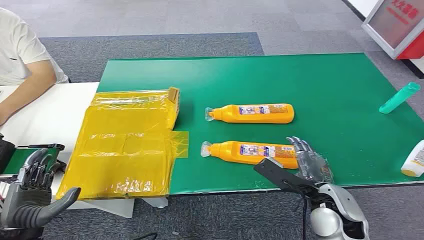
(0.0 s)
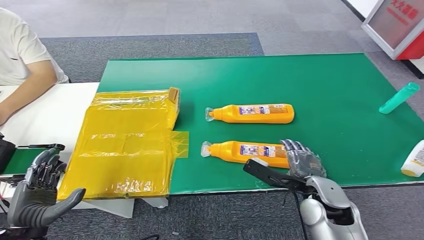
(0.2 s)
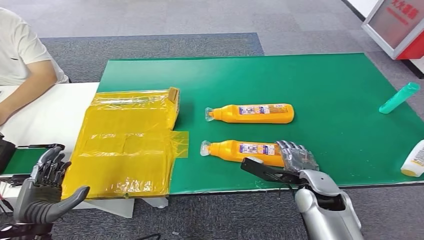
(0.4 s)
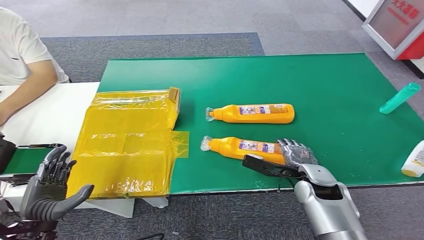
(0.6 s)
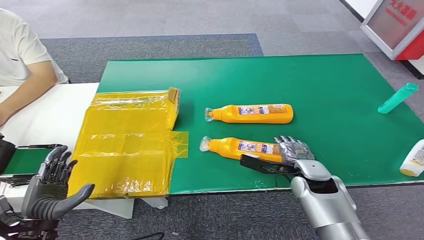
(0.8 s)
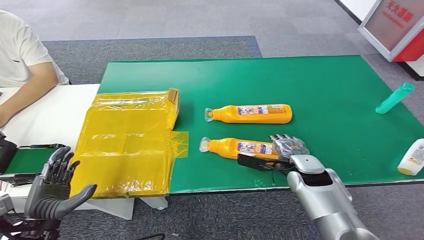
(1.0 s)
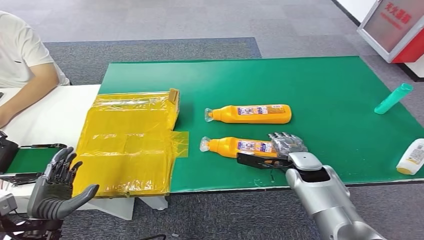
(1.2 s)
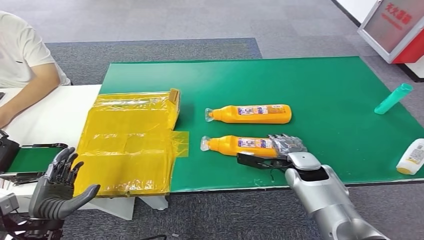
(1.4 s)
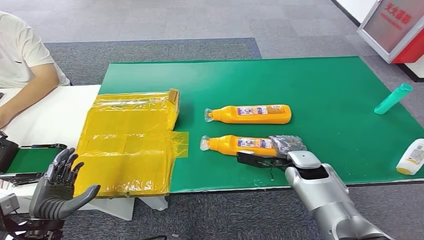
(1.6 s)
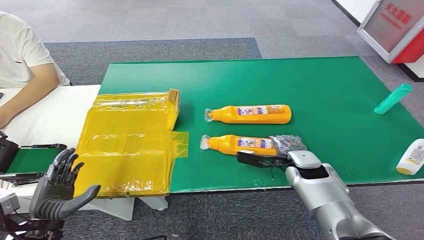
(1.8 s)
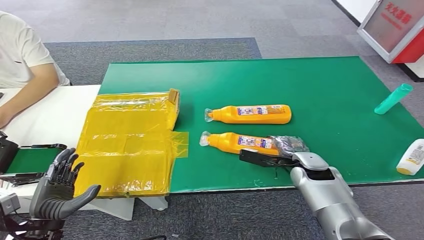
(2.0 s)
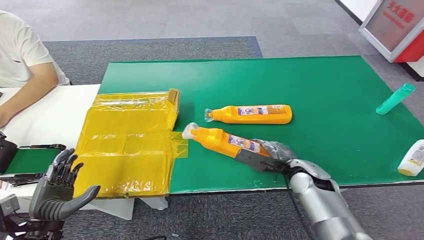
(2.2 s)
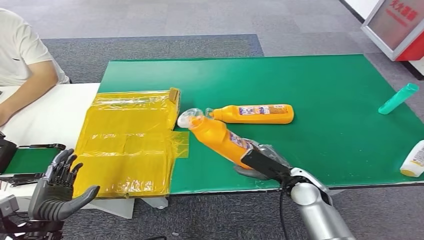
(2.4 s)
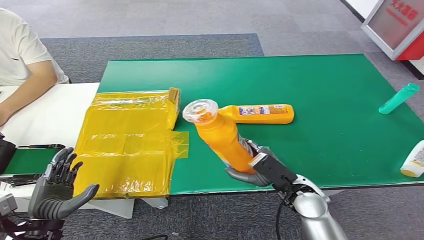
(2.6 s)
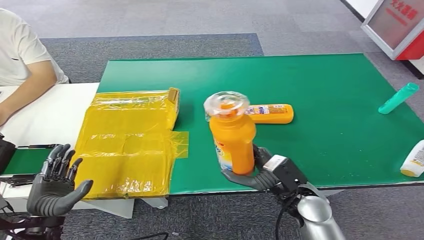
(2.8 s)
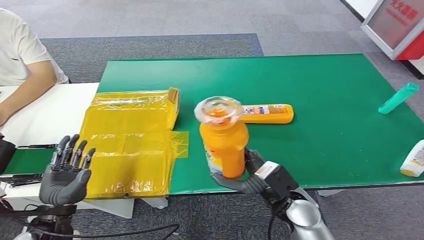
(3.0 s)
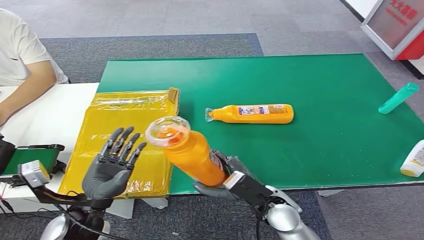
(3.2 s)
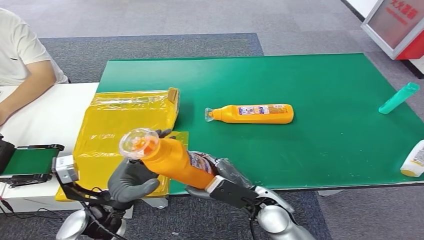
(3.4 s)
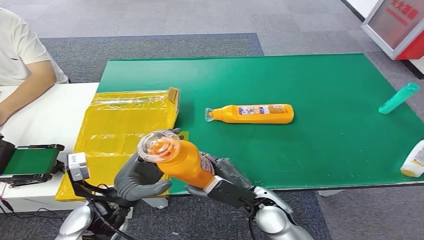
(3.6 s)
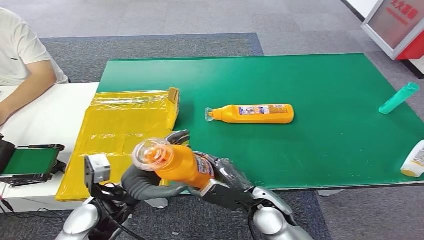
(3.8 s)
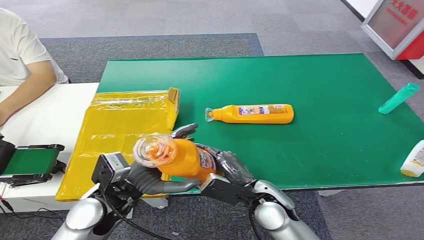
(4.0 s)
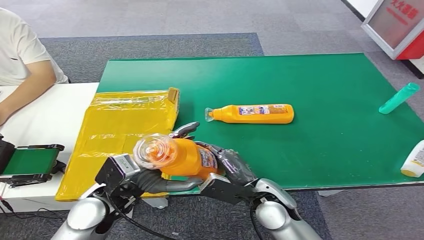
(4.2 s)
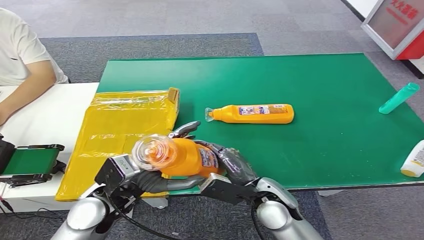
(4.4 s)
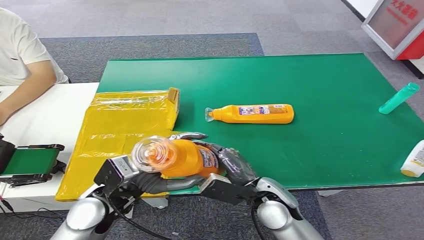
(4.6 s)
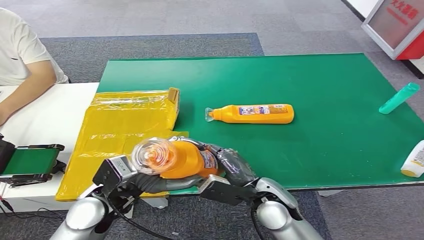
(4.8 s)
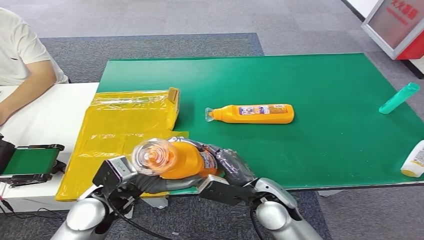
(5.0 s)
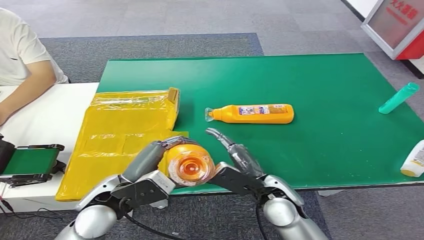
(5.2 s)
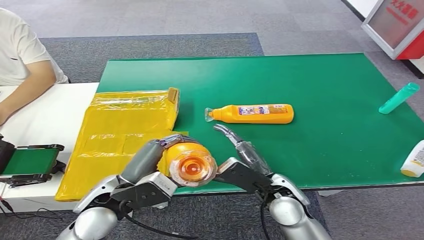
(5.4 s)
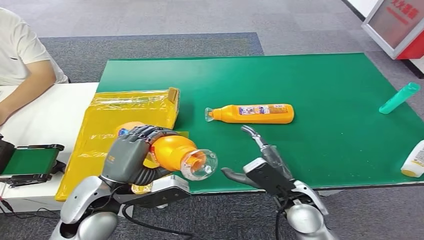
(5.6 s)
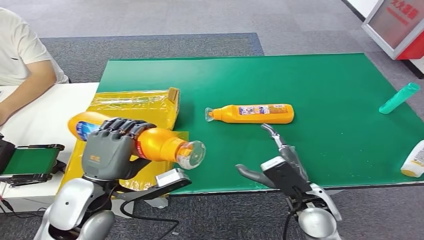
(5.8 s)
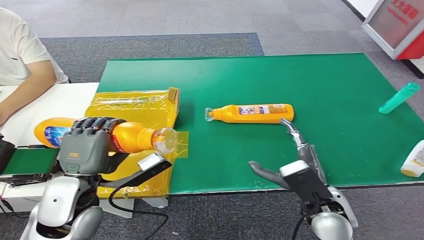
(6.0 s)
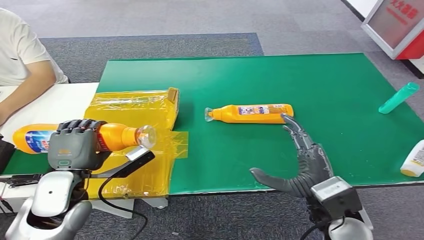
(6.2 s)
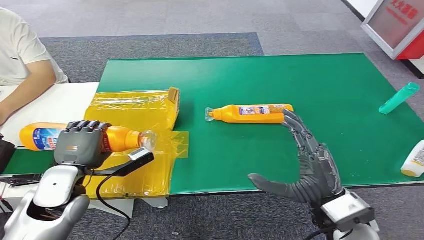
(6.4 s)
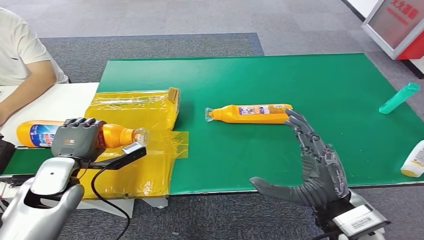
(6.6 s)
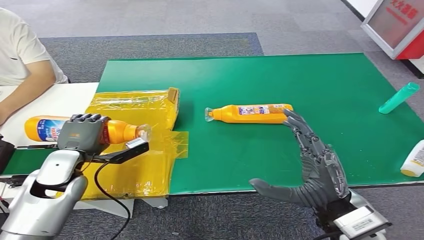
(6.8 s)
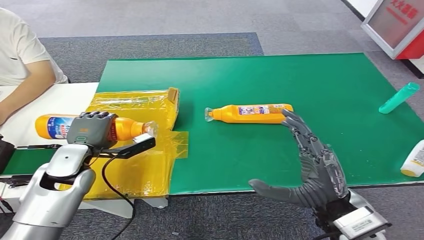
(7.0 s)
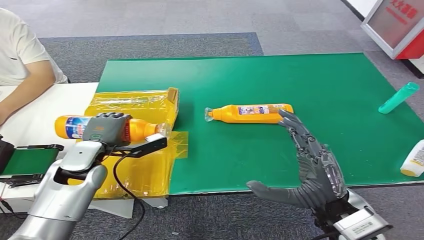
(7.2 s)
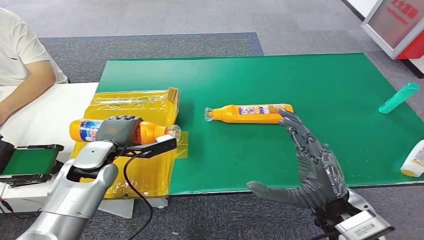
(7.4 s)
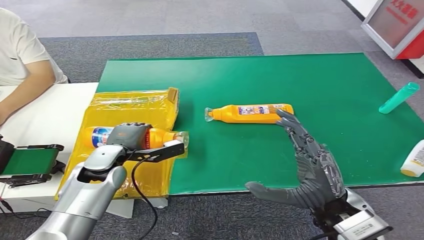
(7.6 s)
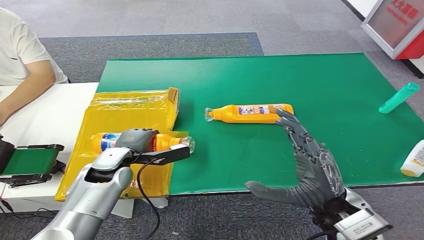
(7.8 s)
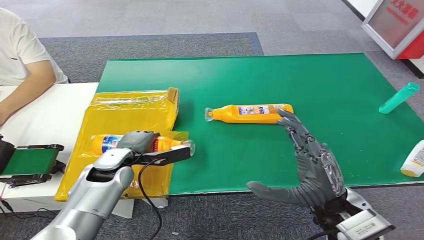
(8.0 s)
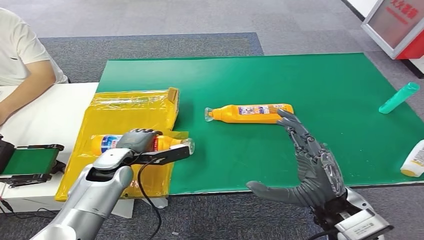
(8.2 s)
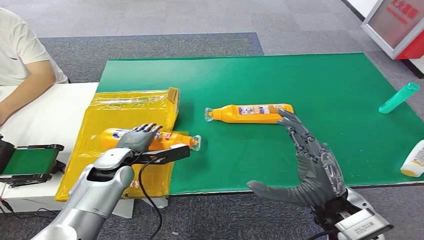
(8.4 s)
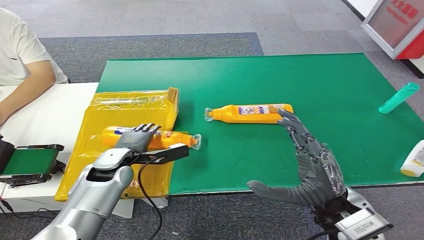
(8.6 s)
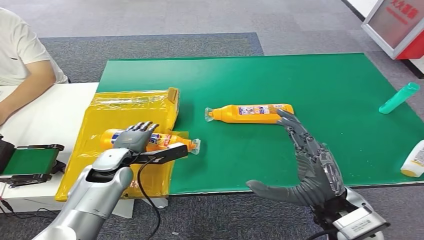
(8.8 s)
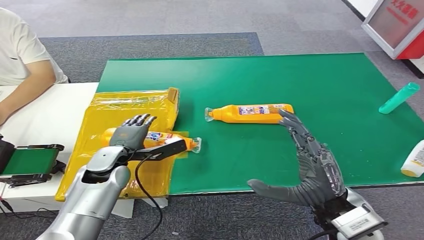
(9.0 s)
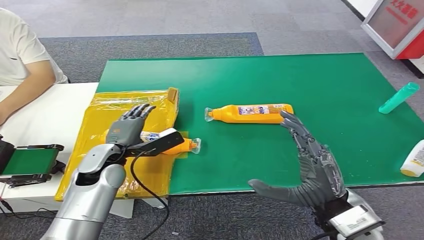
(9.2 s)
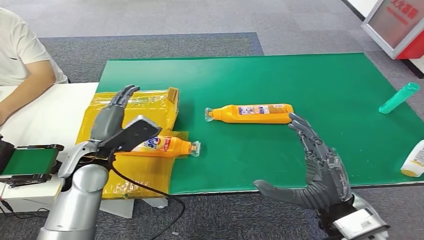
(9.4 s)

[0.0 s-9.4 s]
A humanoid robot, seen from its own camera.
Step, 0.0 to 3.0 s: Pick up the bottle from the table.
Step, 5.0 to 9.4 s: Turn the bottle to the front side.
3.2 to 4.8 s: The left hand travels to the right by about 5 cm.
6.2 to 7.8 s: The left hand travels forward and downward by roughly 10 cm.
7.8 to 9.4 s: The left hand shifts roughly 10 cm upward.

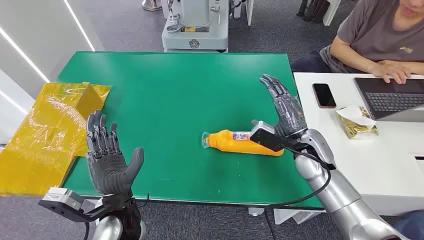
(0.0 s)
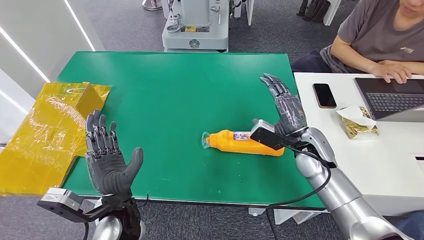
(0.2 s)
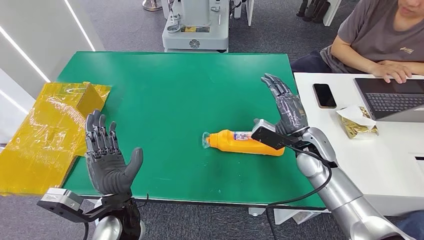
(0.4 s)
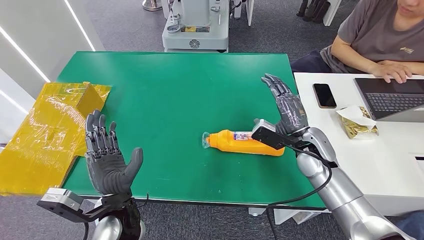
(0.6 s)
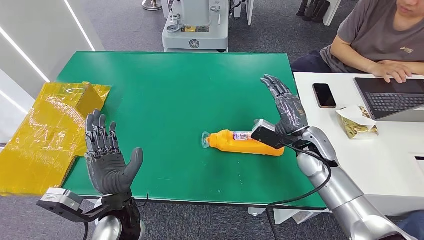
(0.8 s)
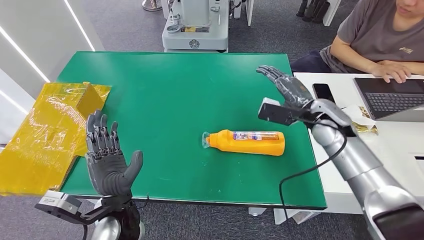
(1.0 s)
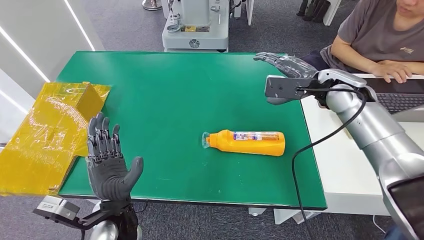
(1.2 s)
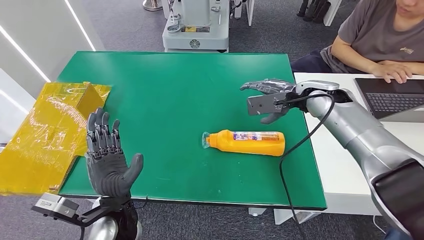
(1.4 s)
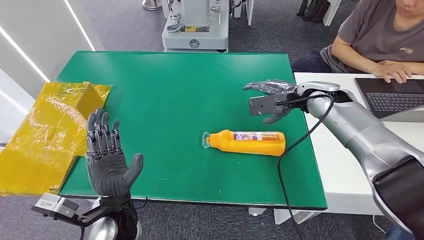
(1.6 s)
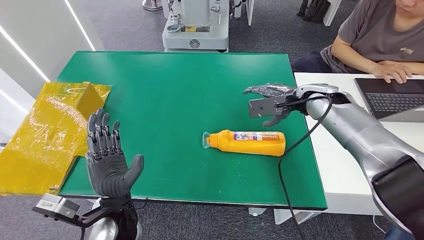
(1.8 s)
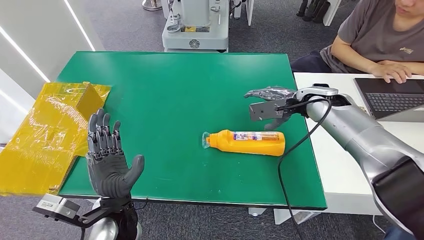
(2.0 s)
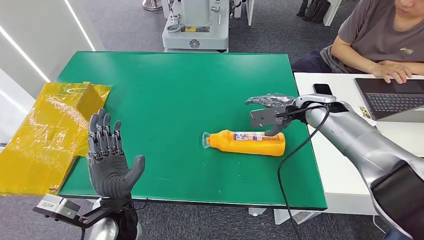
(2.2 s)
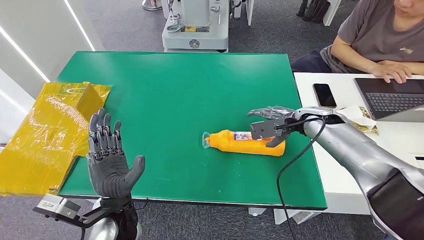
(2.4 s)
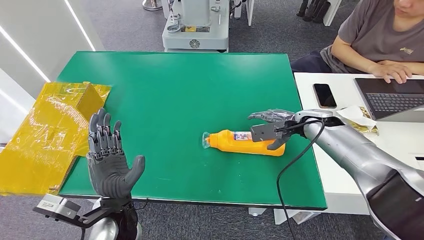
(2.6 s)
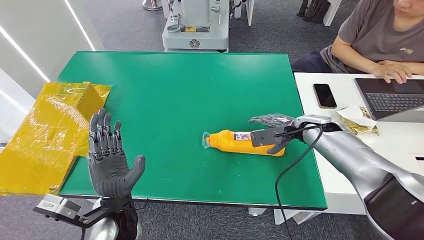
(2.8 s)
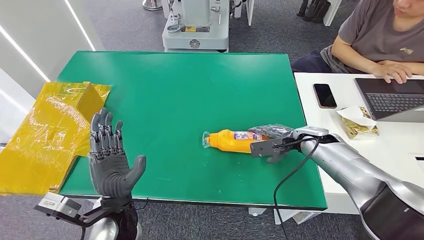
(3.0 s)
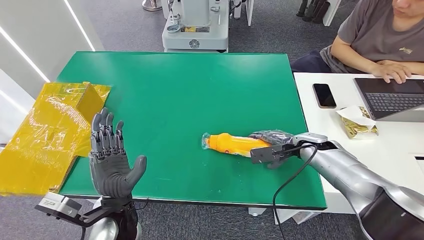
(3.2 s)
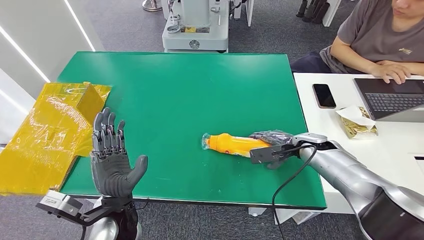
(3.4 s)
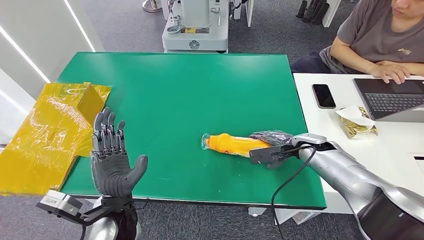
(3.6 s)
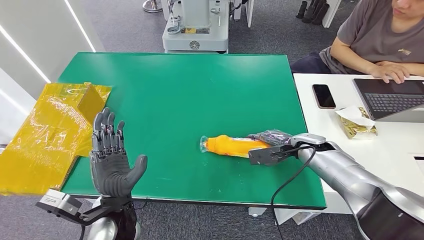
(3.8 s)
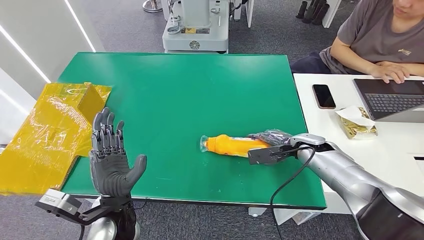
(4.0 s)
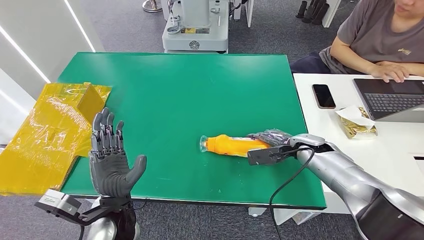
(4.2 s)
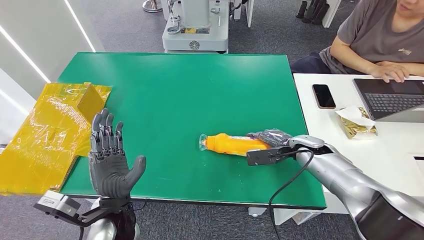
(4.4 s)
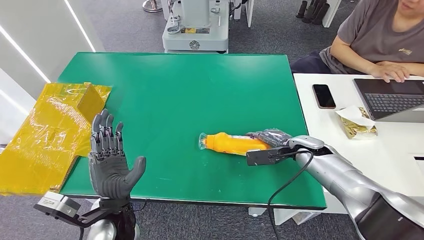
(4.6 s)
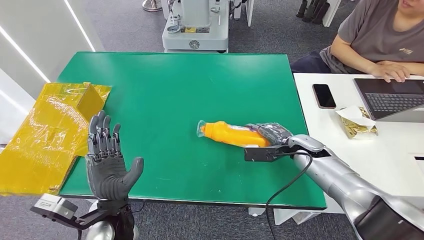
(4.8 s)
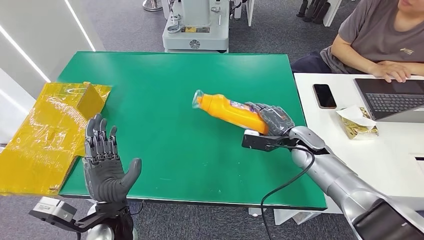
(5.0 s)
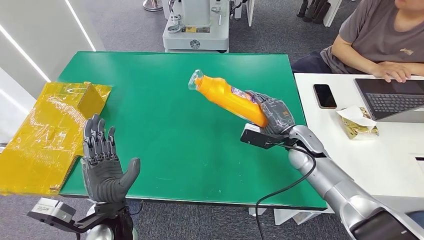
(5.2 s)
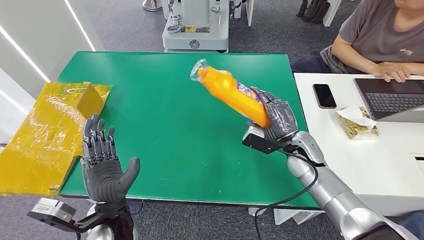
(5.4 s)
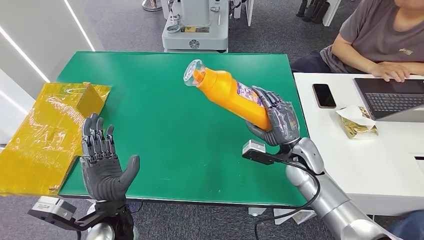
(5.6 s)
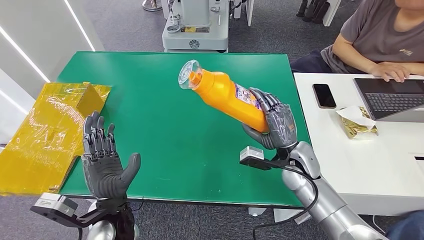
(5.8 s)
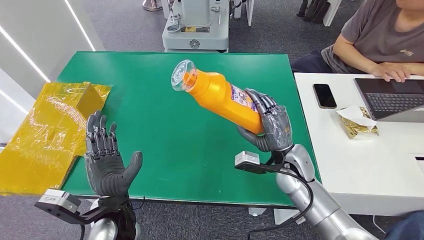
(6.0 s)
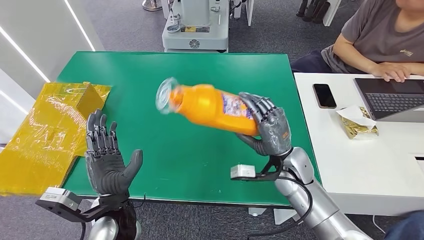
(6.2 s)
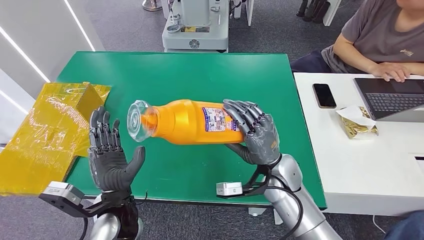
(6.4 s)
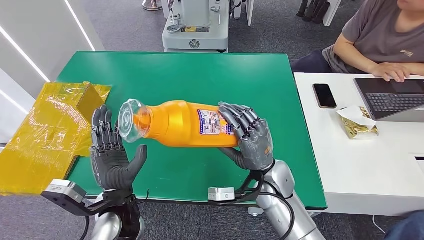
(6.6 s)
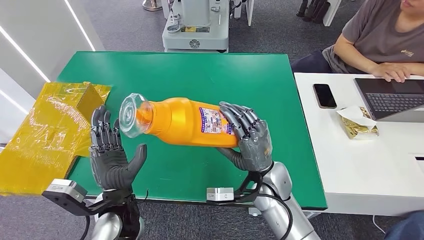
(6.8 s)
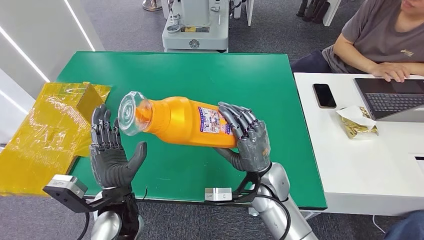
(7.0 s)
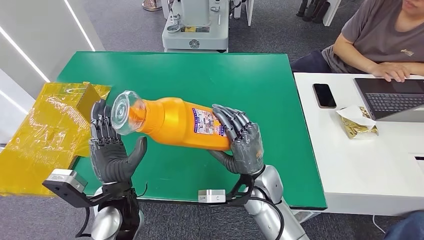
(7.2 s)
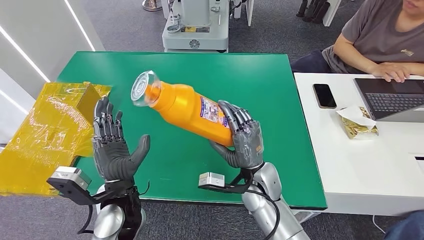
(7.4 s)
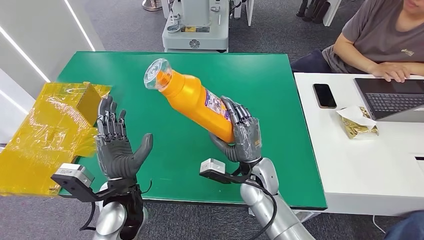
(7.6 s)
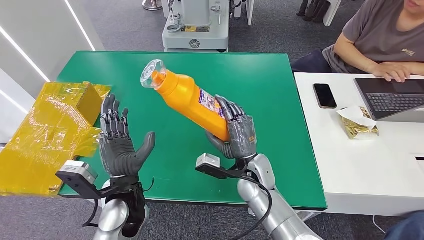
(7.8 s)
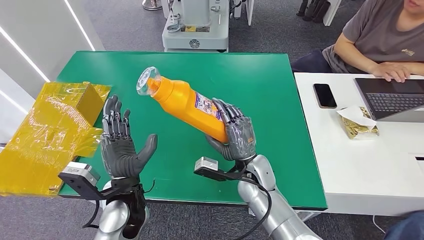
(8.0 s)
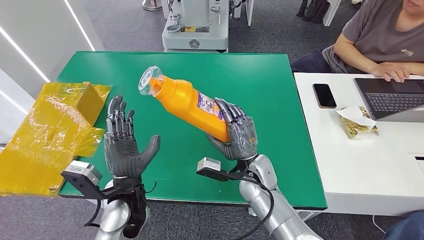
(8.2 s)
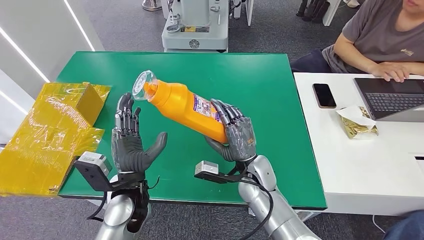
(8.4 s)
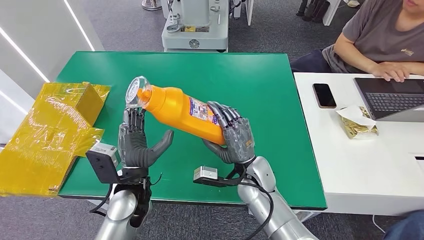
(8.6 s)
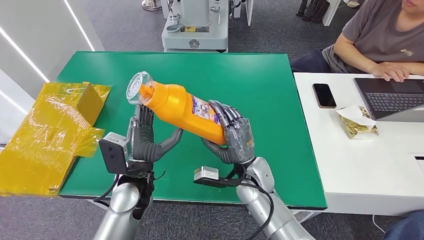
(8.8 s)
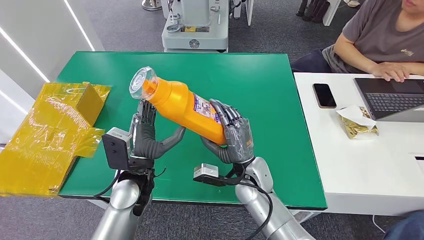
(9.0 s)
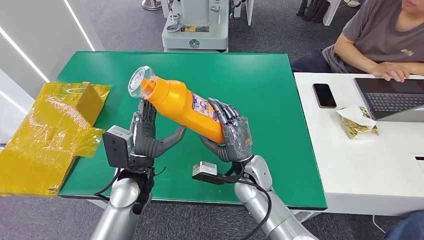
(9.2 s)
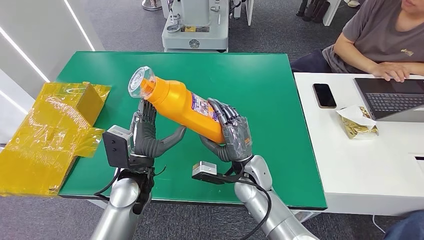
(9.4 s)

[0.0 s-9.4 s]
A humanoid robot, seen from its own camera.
Step, 0.0 to 7.4 s: Pick up the bottle from the table.
1.6 to 3.2 s: The right hand travels downward by roughly 15 cm.
3.2 to 4.8 s: The hands stay close to where they were, moving slightly.
4.8 to 6.2 s: The right hand heads to the left and backward, covering approximately 10 cm.
6.2 to 7.8 s: The right hand shifts about 10 cm to the left.
7.8 to 9.4 s: There are only small adjustments of the hands.
